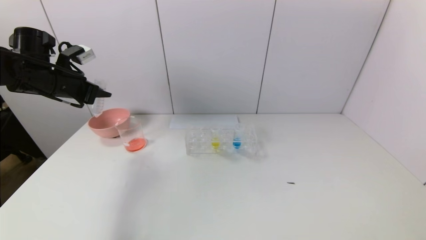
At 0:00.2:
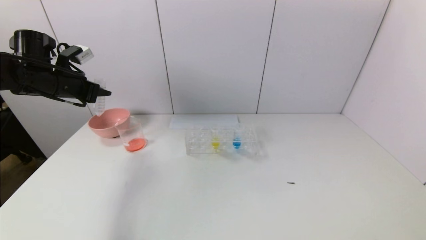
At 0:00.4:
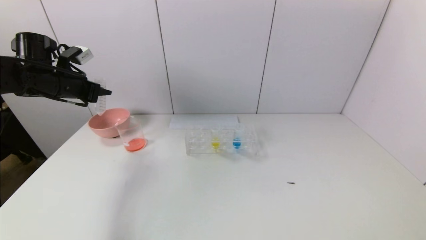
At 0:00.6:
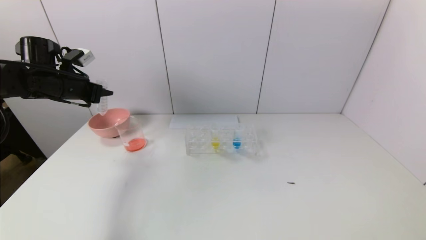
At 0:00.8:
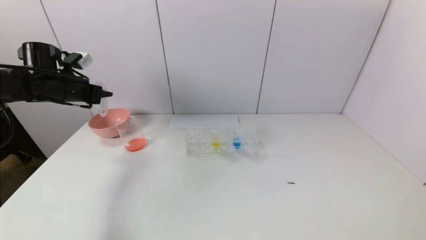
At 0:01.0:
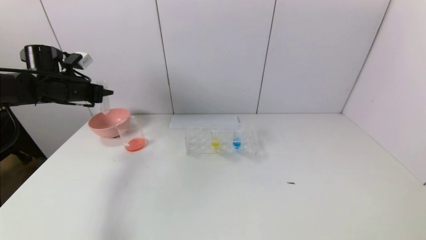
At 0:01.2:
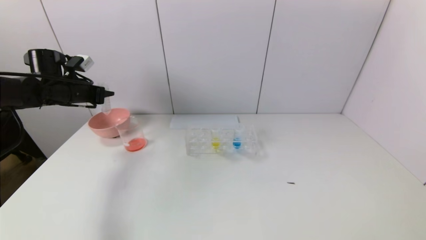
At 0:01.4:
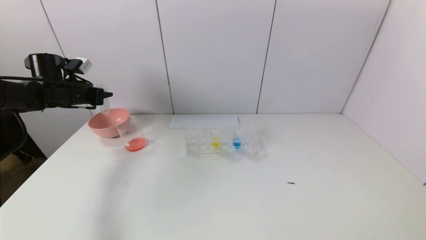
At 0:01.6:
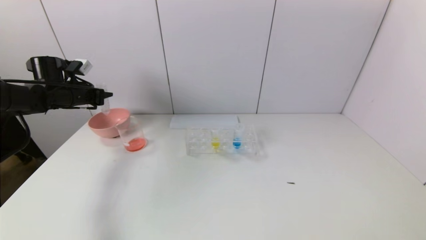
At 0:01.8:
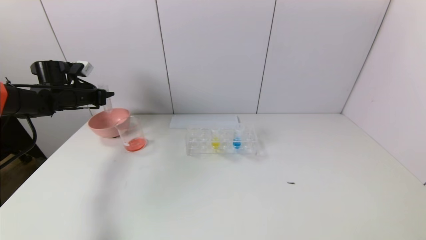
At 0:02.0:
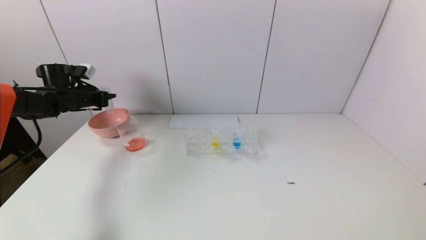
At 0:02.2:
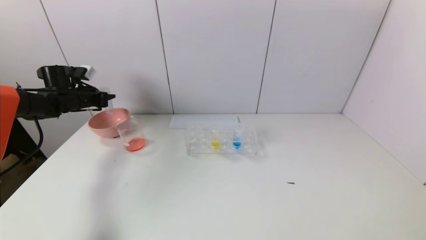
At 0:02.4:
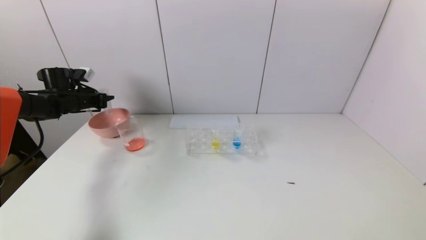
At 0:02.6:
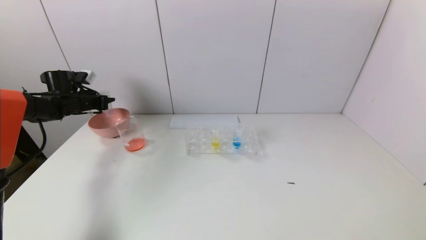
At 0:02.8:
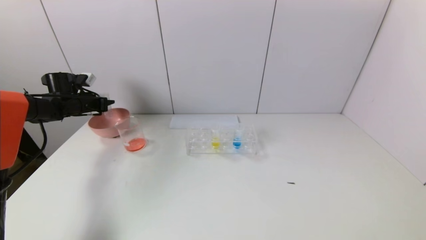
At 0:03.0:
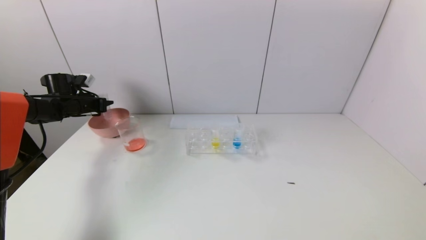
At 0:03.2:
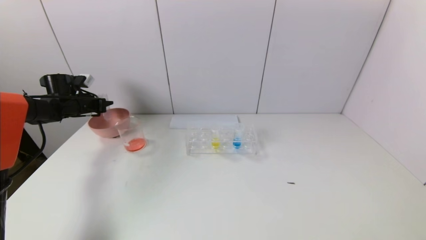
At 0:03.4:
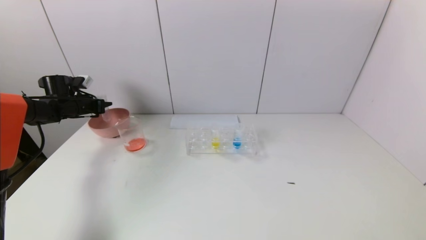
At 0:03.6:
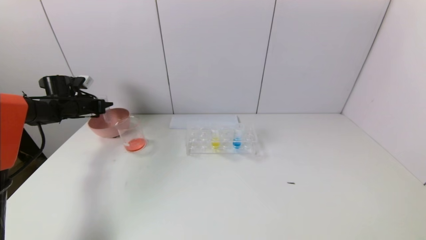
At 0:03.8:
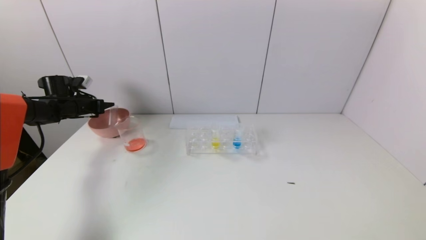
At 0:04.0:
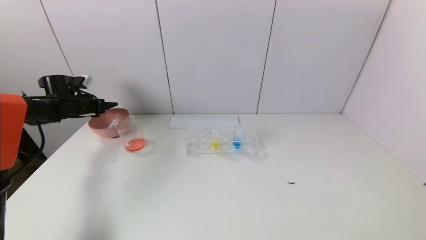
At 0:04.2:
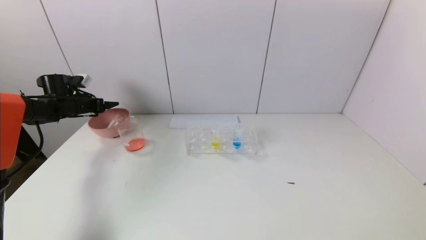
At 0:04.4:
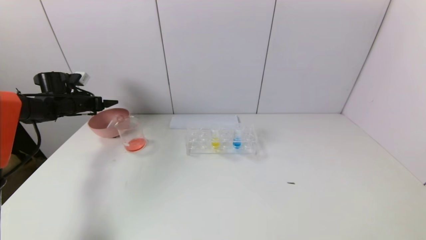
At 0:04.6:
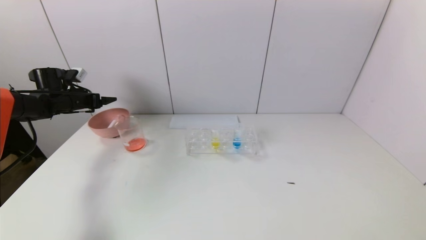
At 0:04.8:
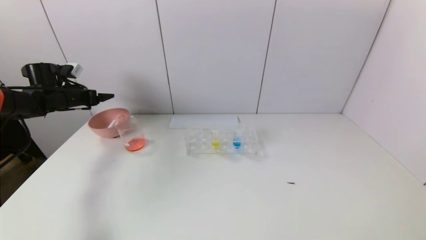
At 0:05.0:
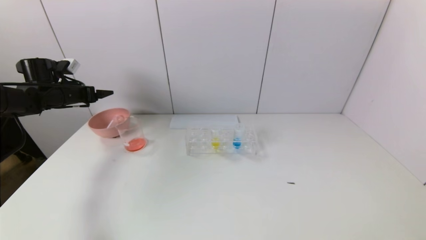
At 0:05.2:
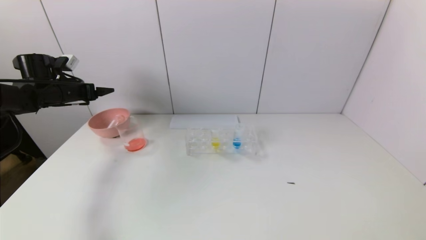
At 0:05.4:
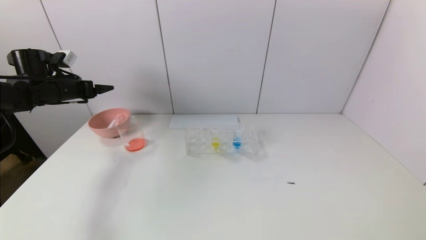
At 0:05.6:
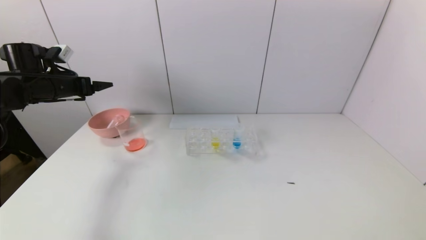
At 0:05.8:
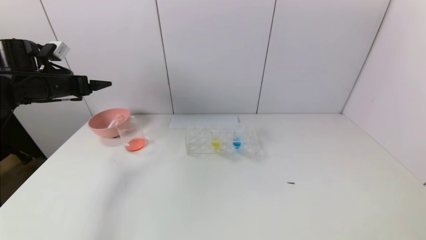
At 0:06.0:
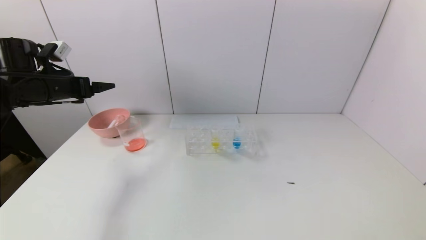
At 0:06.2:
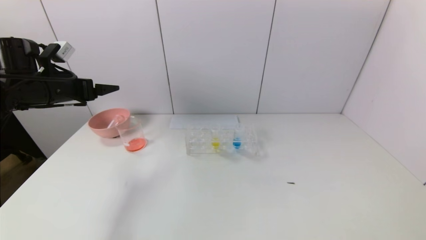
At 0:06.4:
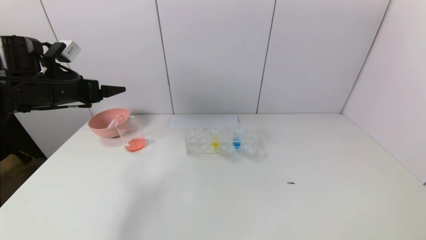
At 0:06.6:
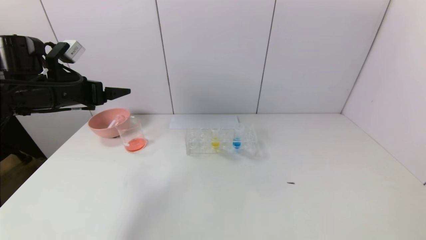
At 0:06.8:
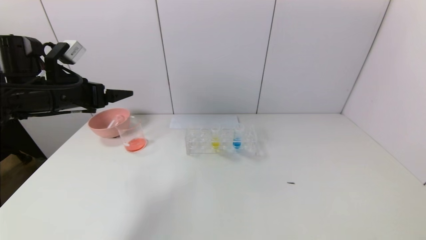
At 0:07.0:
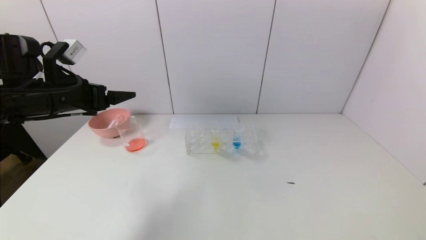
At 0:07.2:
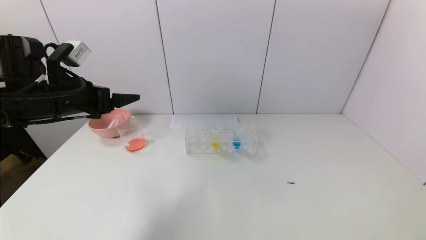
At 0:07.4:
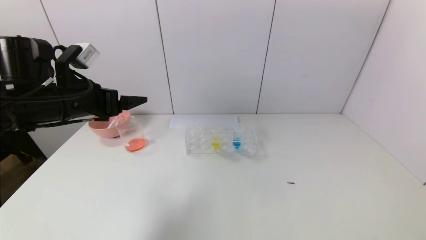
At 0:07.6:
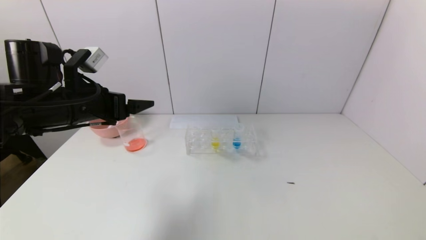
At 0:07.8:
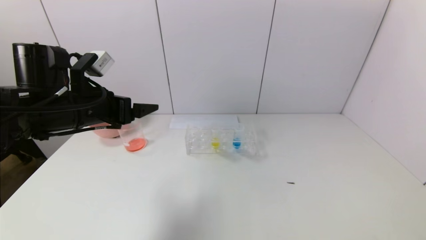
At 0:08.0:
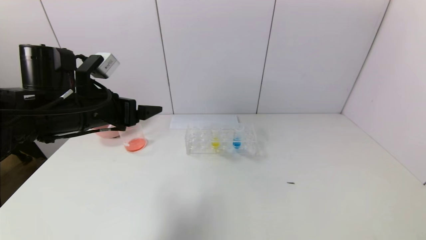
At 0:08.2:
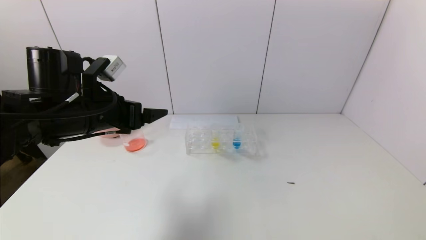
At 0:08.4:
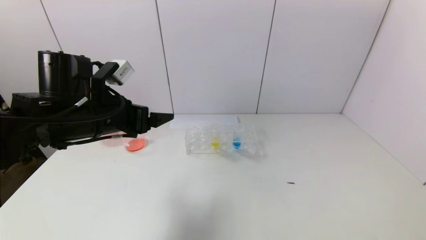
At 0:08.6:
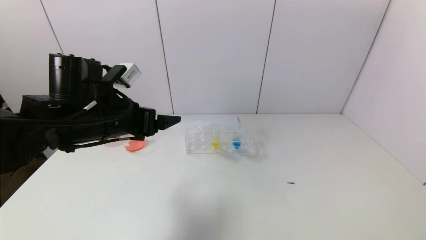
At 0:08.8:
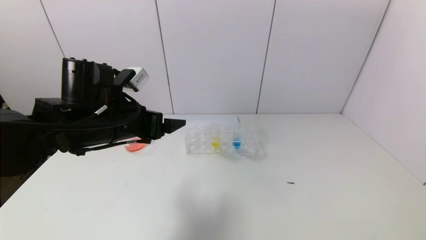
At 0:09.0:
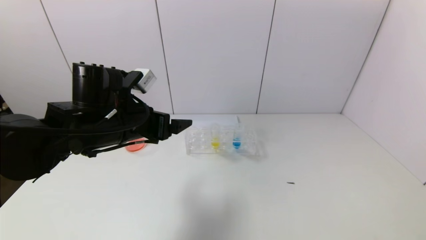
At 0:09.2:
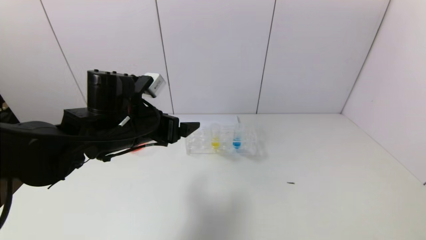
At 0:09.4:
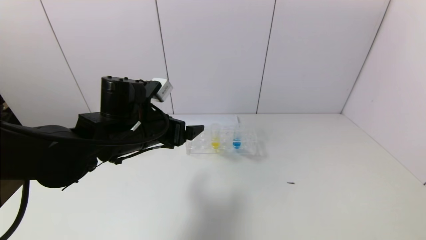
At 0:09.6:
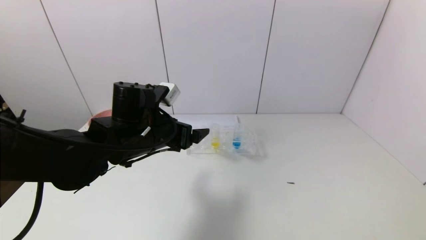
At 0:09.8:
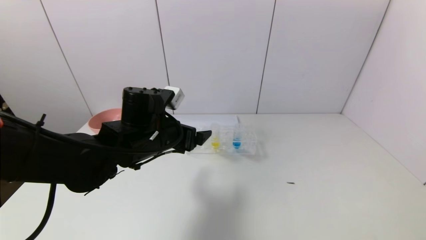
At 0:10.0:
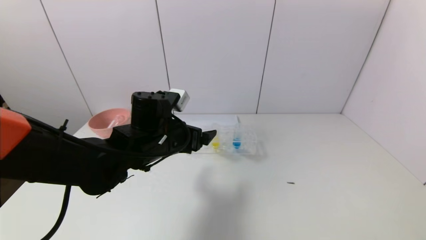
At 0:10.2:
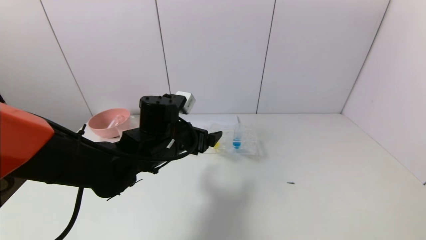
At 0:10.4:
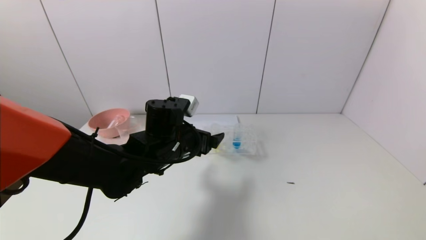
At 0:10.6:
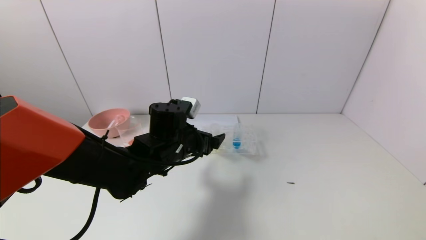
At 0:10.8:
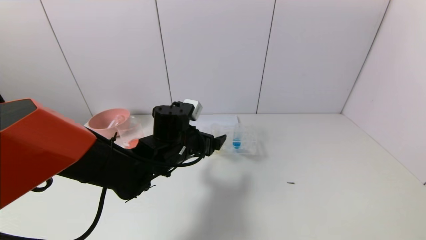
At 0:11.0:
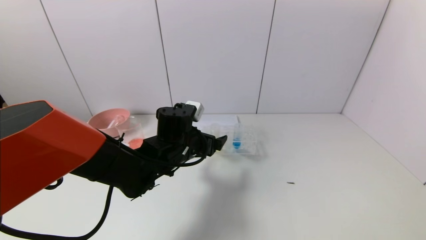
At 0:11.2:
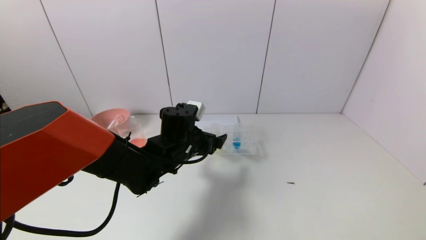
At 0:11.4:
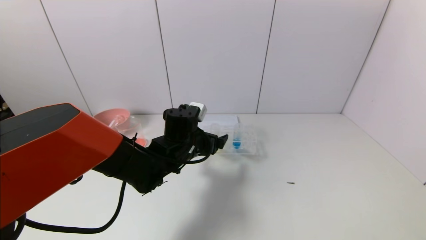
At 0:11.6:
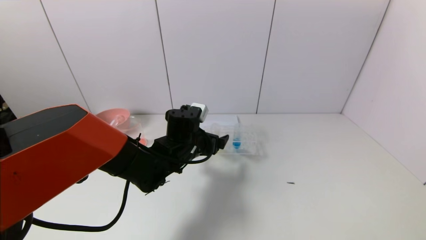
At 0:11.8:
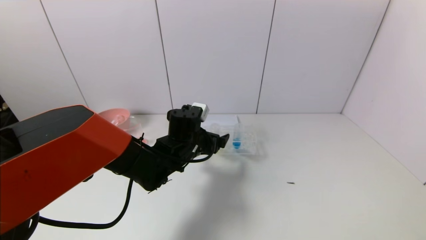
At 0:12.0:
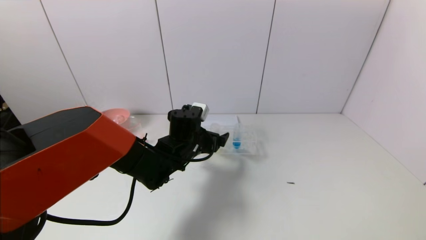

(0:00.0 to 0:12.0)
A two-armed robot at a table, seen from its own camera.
Task of the whole recording: pick up the test tube with yellow pigment and the test tube with red pigment by grippers and pour them into the beaker.
Step, 0:00.0 - 0:03.8: Place the test tube into the pink bowl with the left gripper.
0:00.0 - 0:01.6: The left gripper is displaced forward and downward by approximately 10 cm.
0:01.6 - 0:03.0: The left gripper is displaced downward by some 5 cm.
0:03.0 - 0:04.4: The left gripper opens its fingers.
0:04.4 - 0:06.0: The left gripper travels backward, upward and to the right by about 15 cm.
0:06.0 - 0:07.6: The left gripper travels to the right and backward by about 15 cm.
0:07.6 - 0:09.0: The left gripper travels to the right by some 10 cm.
0:09.0 - 0:10.4: The left gripper travels to the right and downward by roughly 10 cm.
0:10.4 - 0:12.0: The left gripper shifts about 5 cm forward.

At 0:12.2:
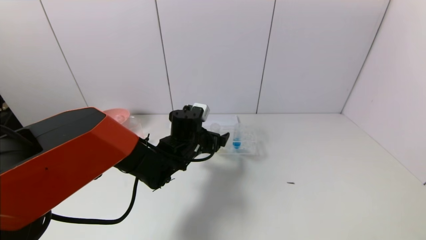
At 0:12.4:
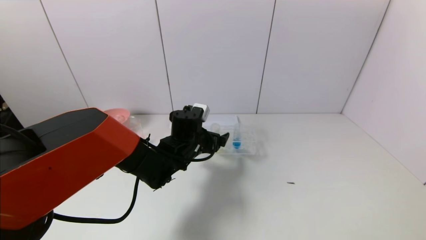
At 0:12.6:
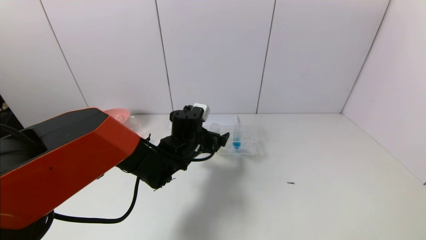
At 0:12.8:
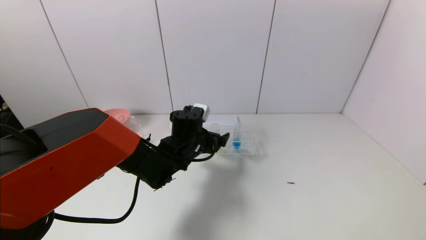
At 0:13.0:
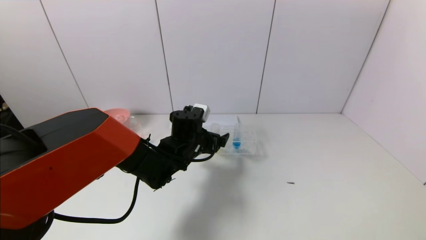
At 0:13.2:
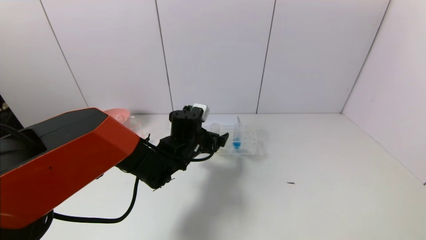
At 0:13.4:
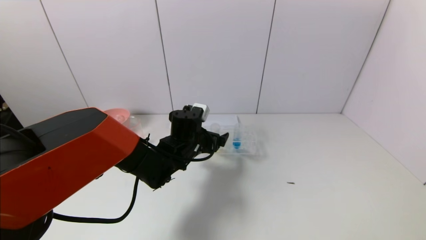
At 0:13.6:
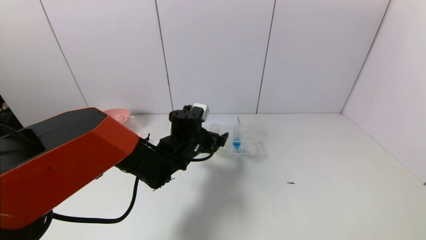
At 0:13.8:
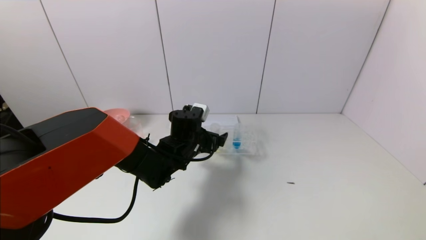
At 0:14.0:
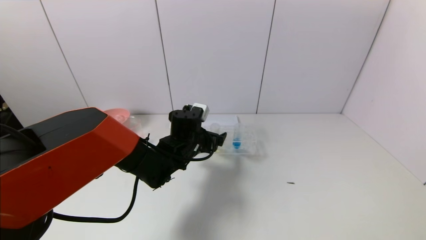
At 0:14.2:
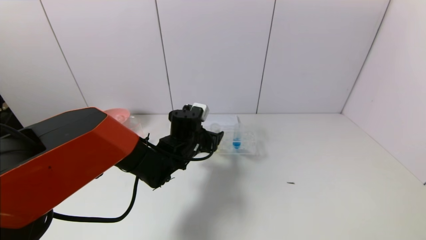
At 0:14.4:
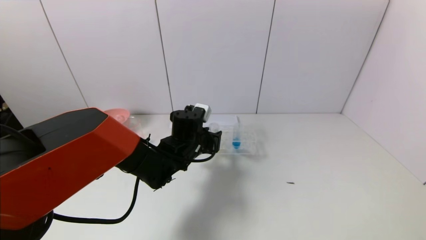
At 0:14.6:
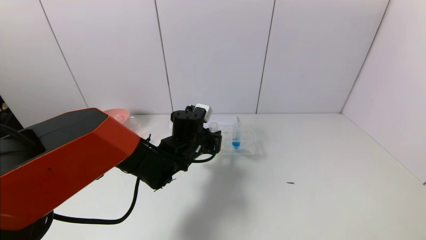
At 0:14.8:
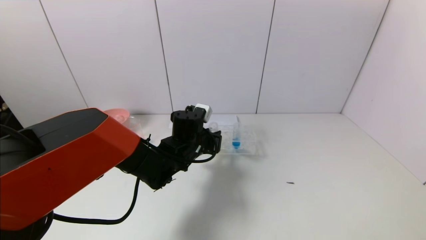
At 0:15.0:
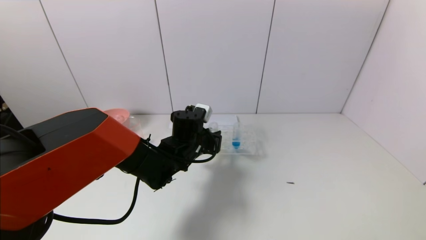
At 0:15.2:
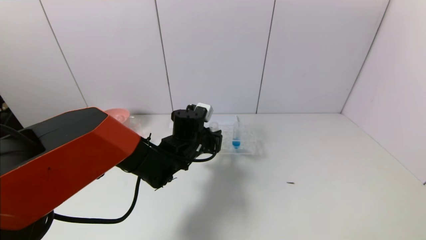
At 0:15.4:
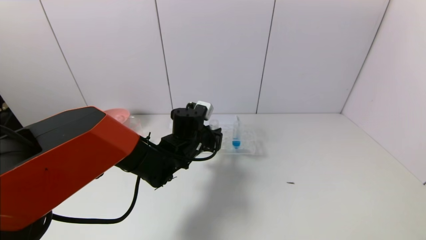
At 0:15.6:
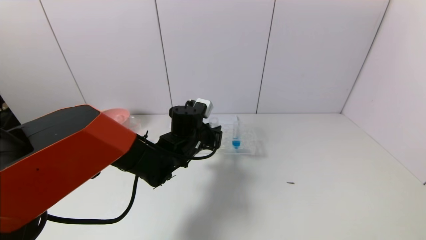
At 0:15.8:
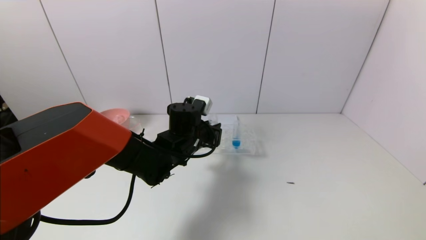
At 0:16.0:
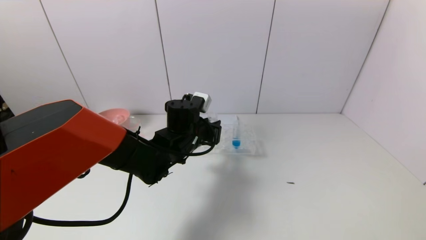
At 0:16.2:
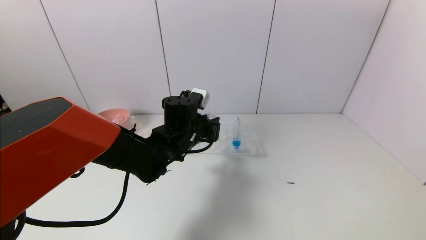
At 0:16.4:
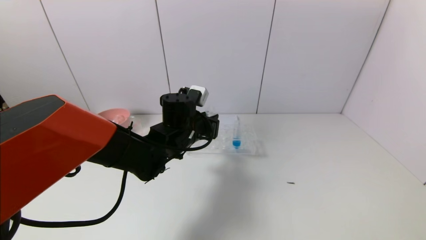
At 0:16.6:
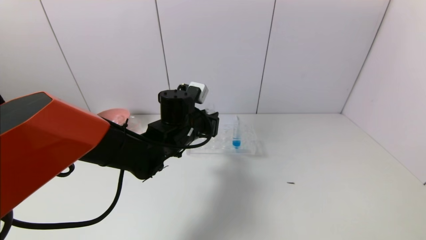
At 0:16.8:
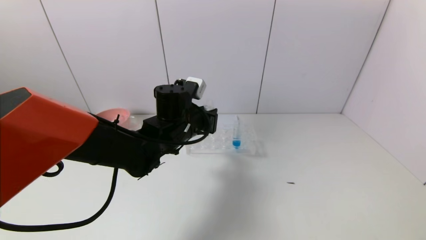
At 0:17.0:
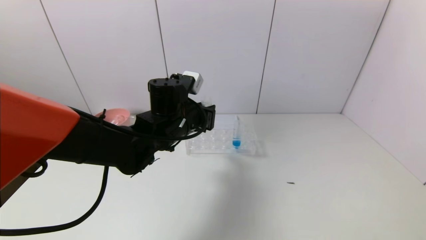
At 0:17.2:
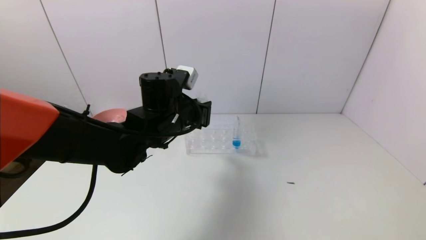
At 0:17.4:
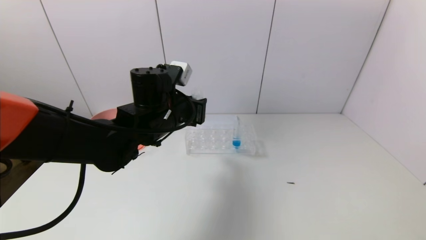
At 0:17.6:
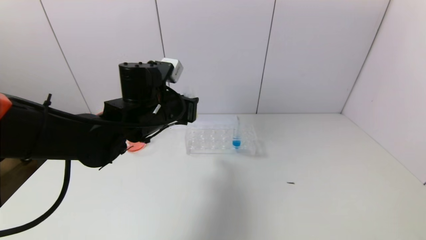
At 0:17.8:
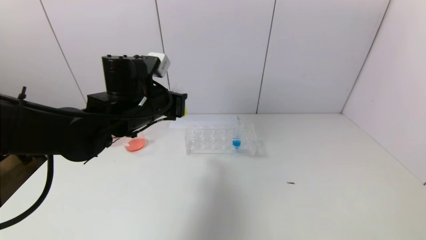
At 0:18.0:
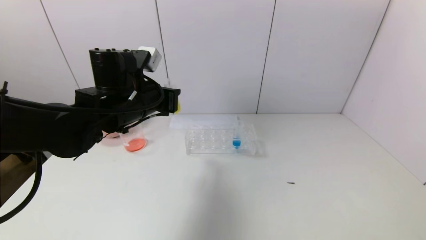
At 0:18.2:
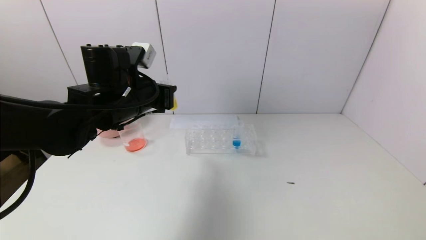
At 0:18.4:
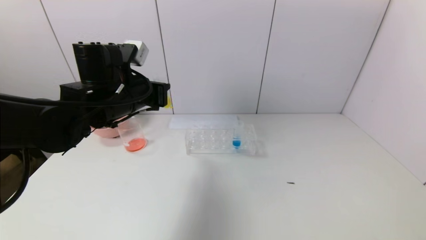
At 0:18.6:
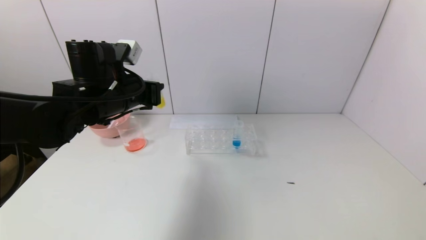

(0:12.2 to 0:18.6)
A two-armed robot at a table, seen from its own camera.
Task of the whole recording: pick up the test tube with yellow pigment and the test tube with red pigment by grippers and pour them into the beaker.
Step, 0:12.2 - 0:14.8: Grasp the yellow reagent with the left gripper.
0:12.2 - 0:13.8: Both grippers stay about where they are.
0:13.8 - 0:15.4: The left gripper closes up.
0:15.4 - 0:17.0: The left gripper moves upward, some 10 cm.
0:17.0 - 0:18.6: The left gripper goes about 10 cm to the left and upward.
